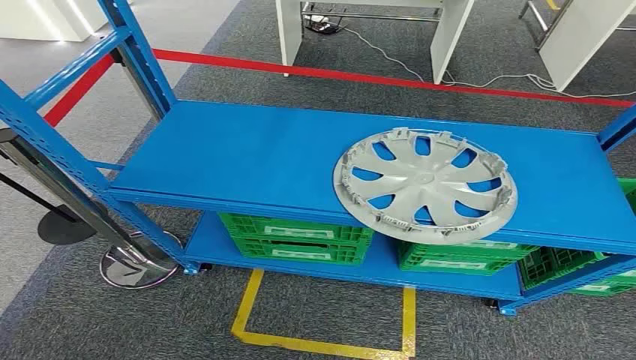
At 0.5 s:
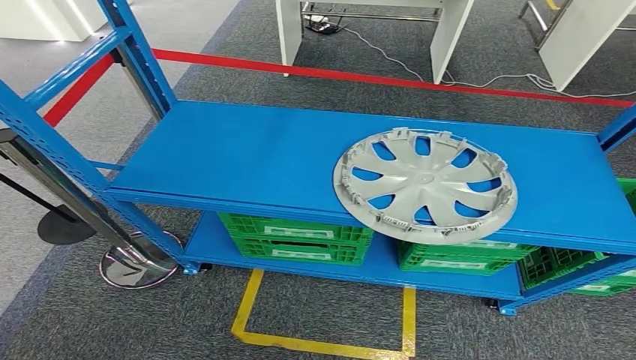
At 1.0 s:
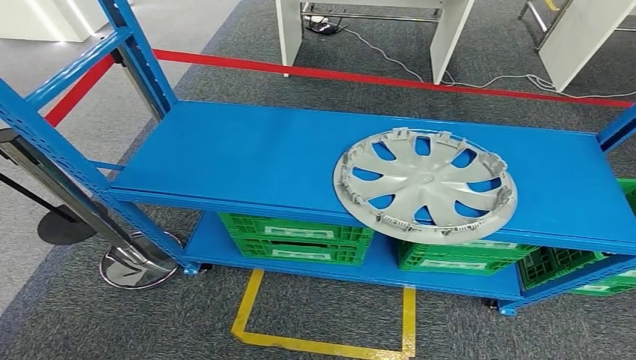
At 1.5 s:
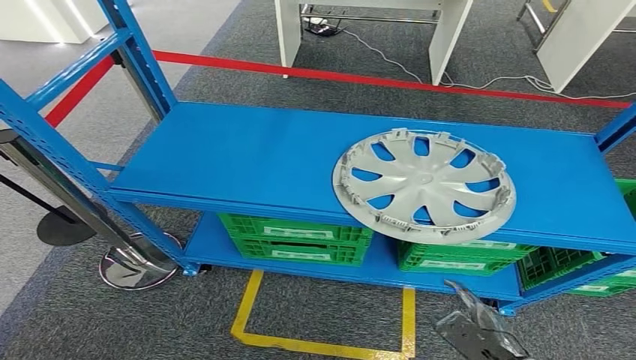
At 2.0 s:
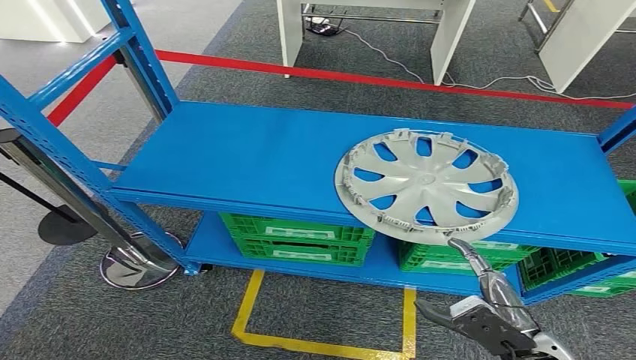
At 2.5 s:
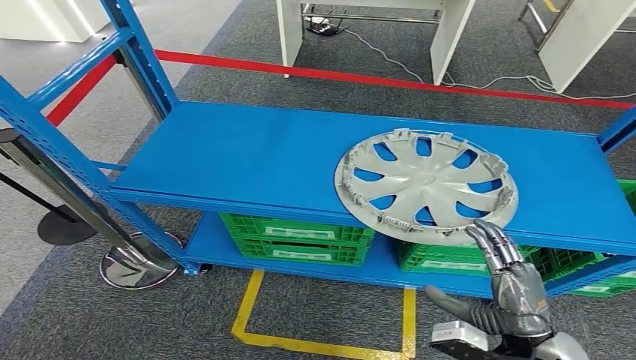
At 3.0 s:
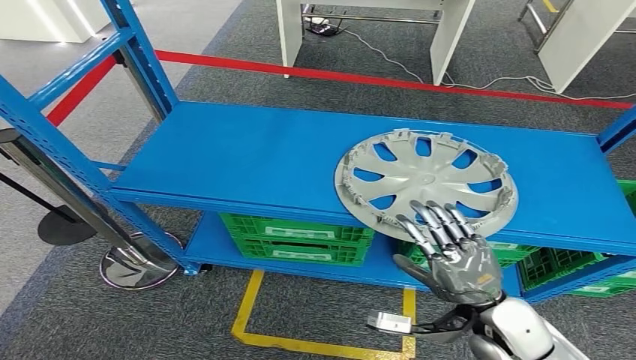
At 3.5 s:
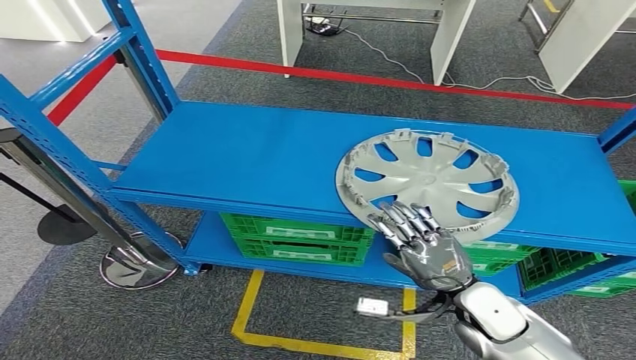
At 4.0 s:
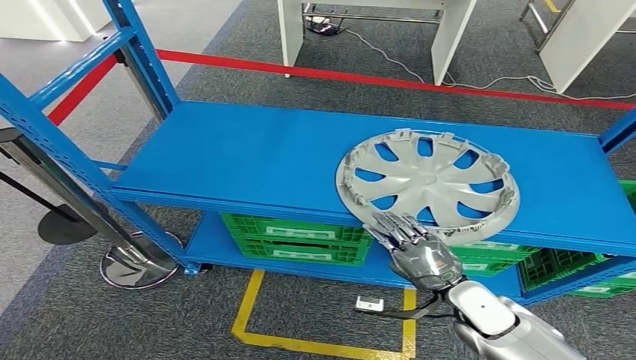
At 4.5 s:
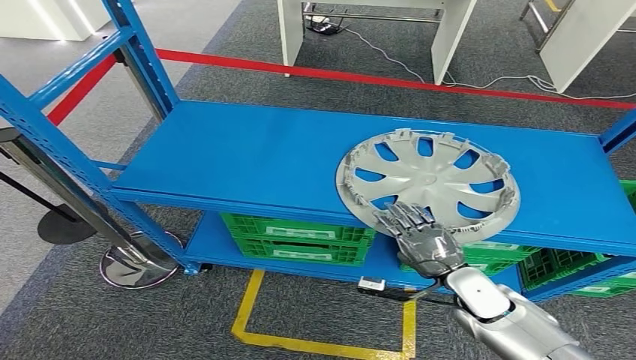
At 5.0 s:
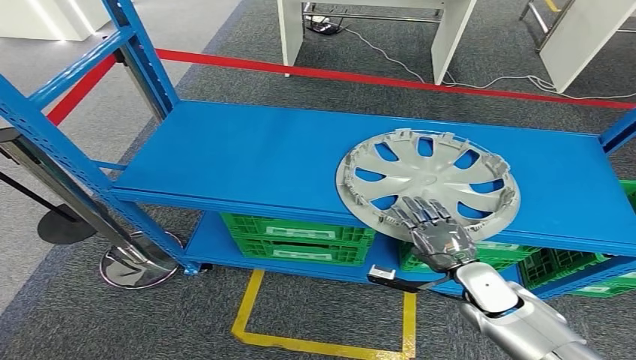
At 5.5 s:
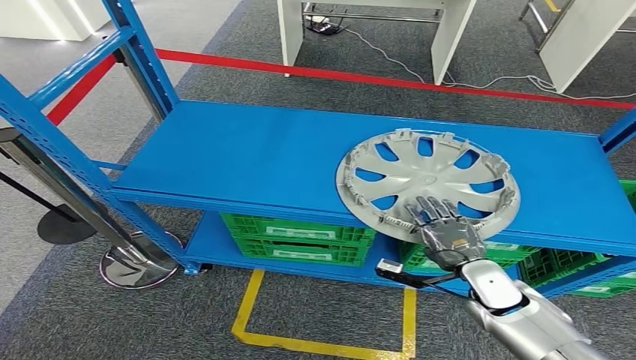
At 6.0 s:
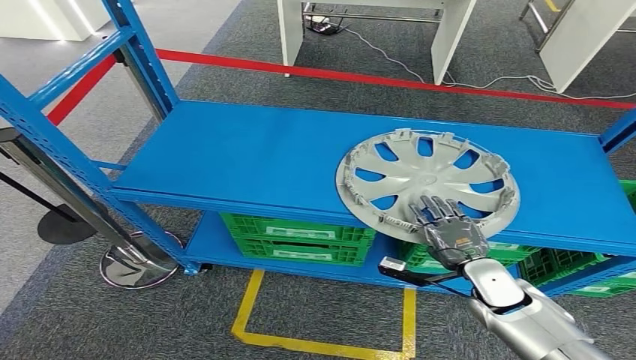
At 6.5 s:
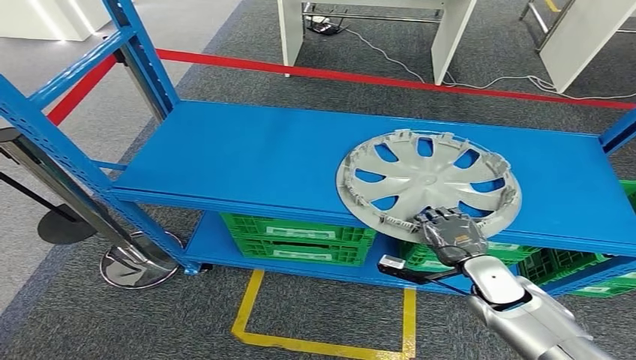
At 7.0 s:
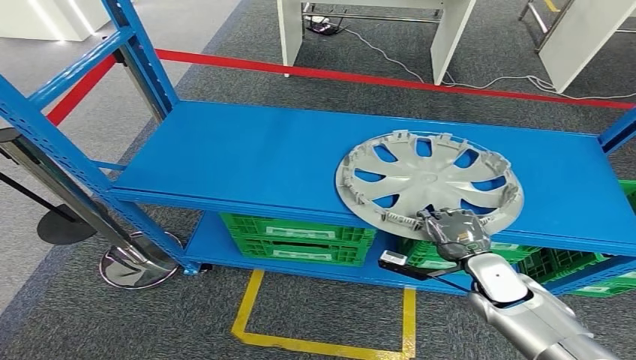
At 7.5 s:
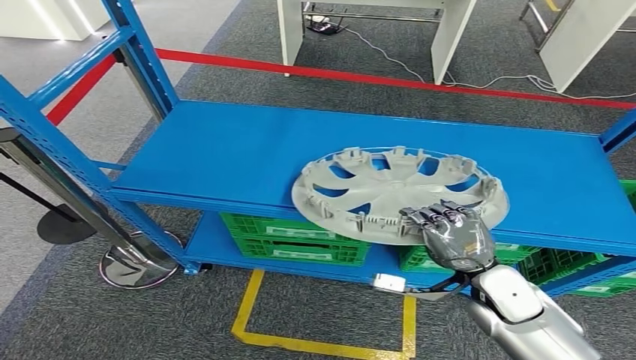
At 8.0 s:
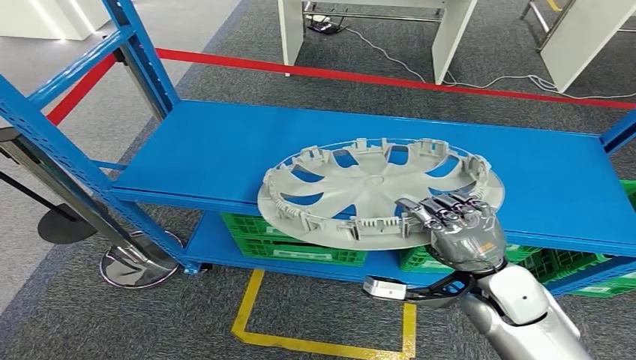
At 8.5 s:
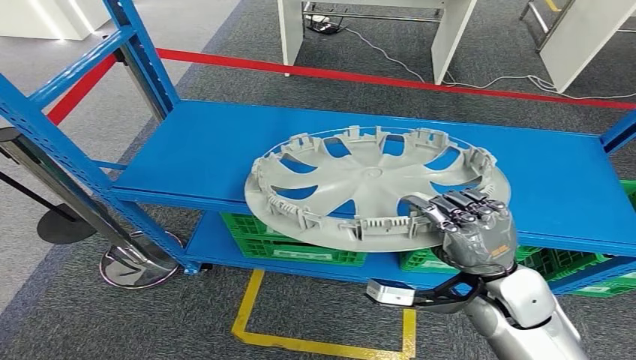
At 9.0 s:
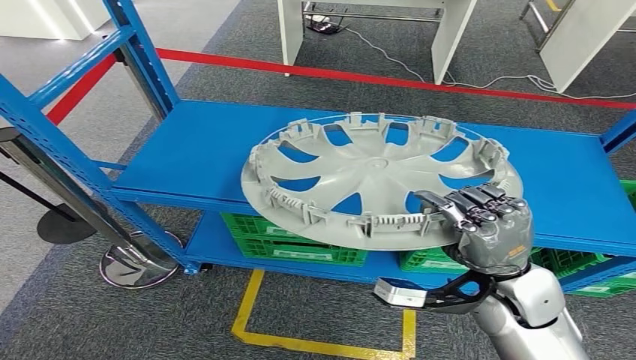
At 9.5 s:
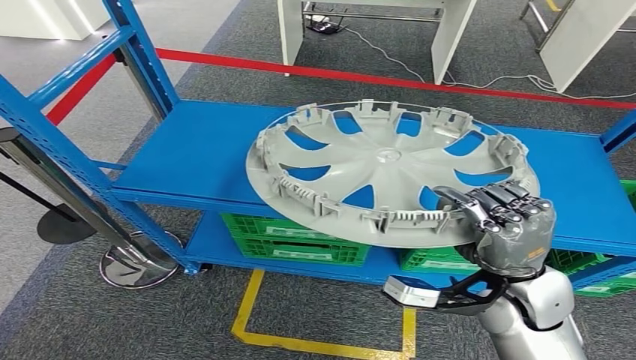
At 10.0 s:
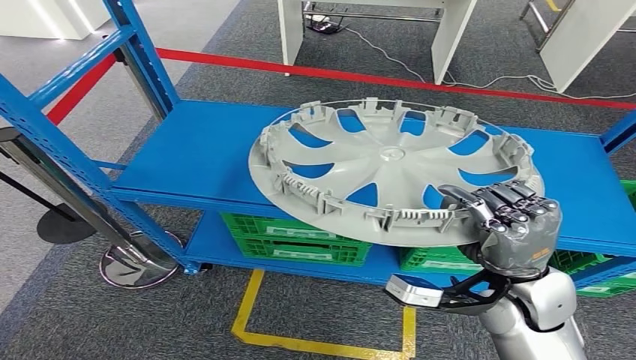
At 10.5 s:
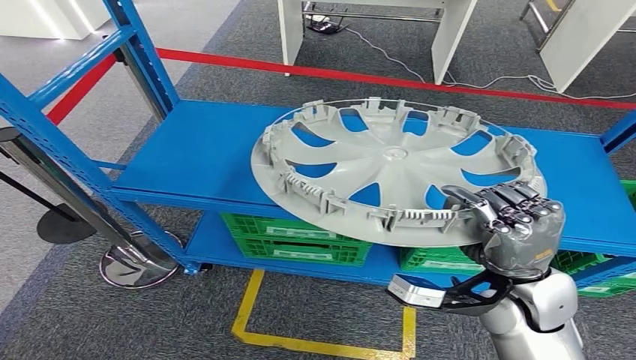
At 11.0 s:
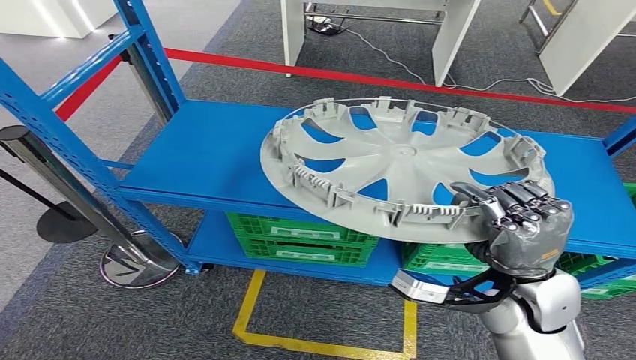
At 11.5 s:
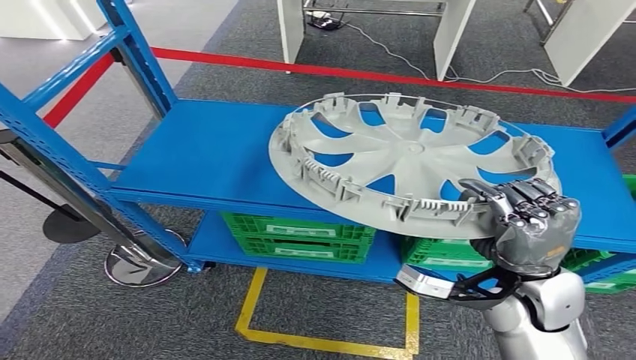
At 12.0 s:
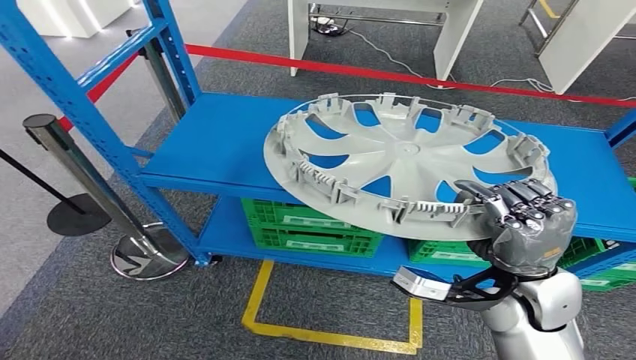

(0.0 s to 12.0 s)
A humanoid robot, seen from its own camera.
2.0 s - 4.0 s: The right hand moves forward, approximately 10 cm.
4.0 s - 6.0 s: The right hand ends up roughly 5 cm from where it was.
6.0 s - 8.0 s: The right hand heads upward, covering approximately 10 cm.
8.0 s - 10.0 s: The hands stay close to where they were, moving slightly.

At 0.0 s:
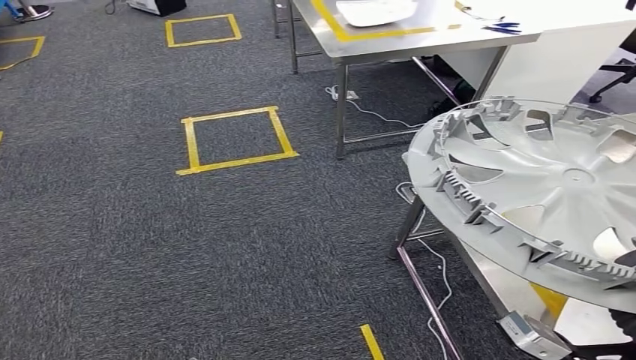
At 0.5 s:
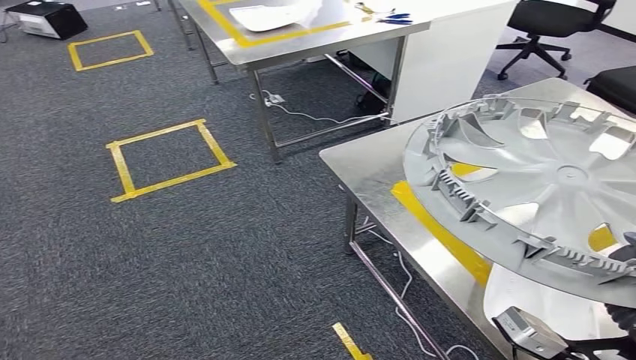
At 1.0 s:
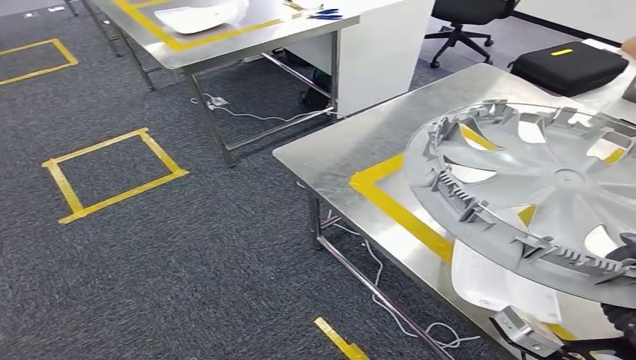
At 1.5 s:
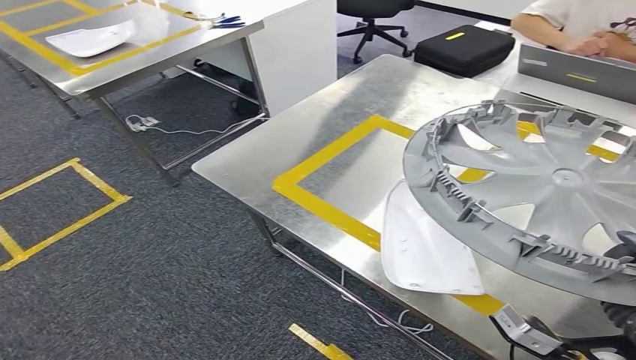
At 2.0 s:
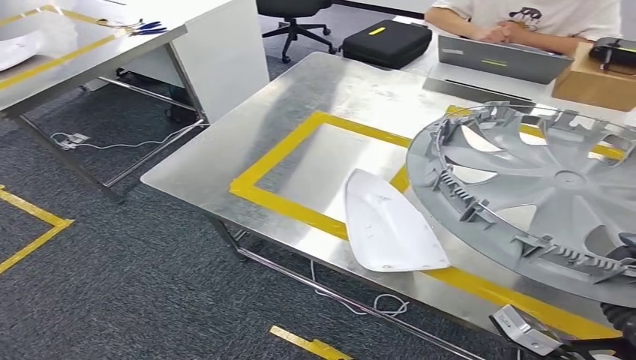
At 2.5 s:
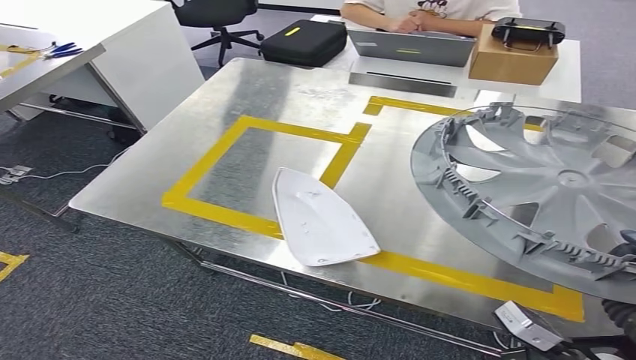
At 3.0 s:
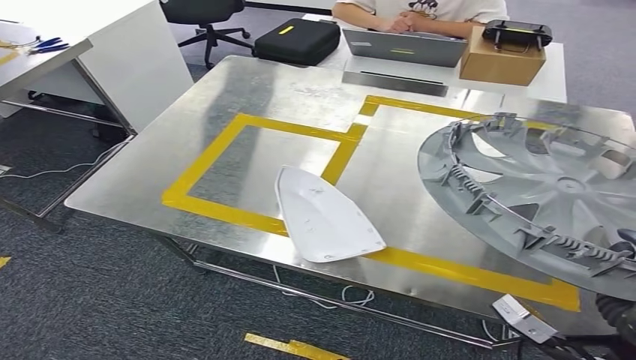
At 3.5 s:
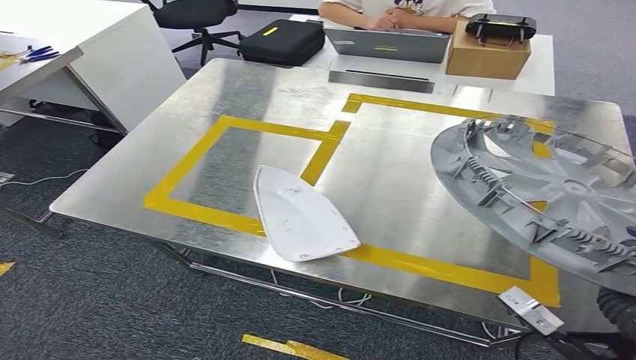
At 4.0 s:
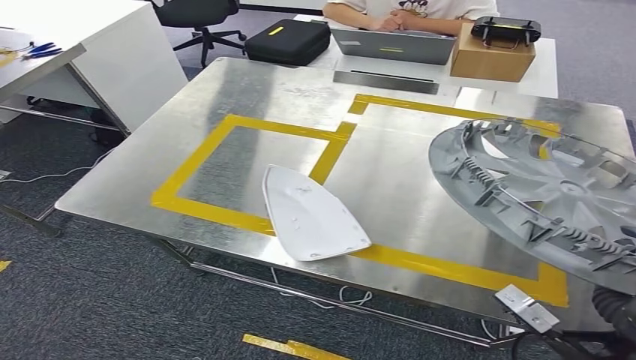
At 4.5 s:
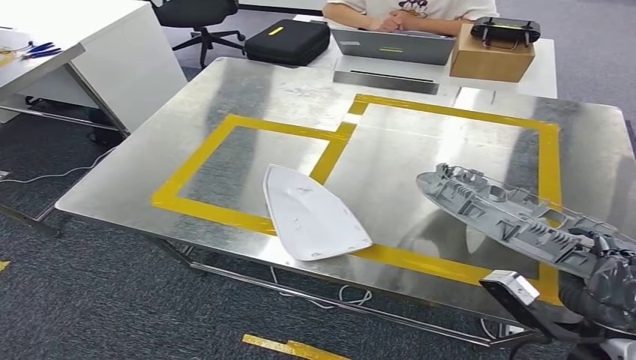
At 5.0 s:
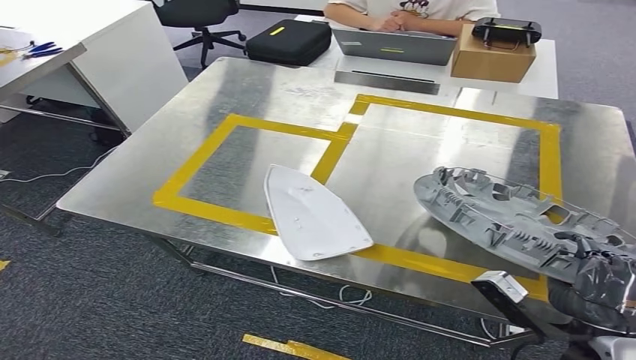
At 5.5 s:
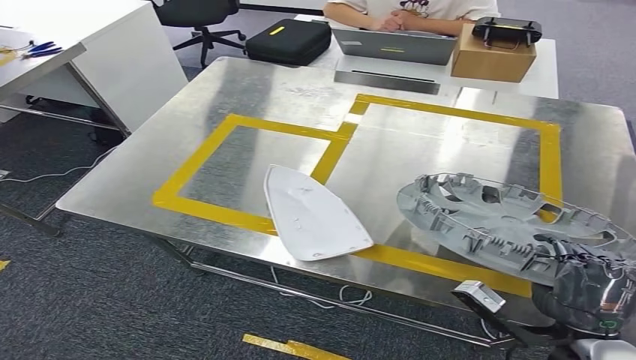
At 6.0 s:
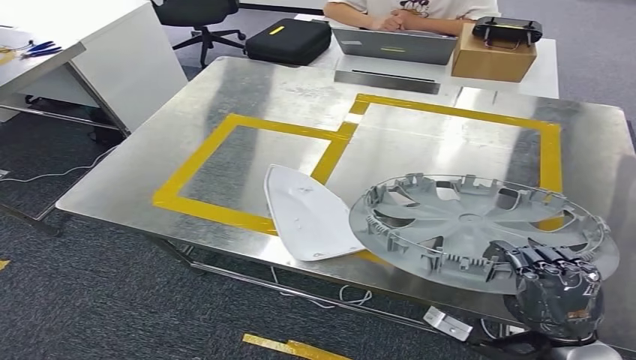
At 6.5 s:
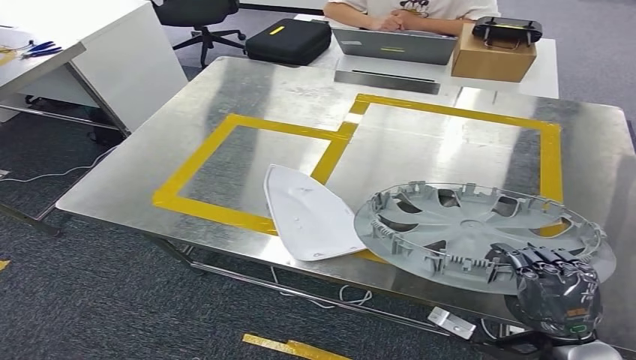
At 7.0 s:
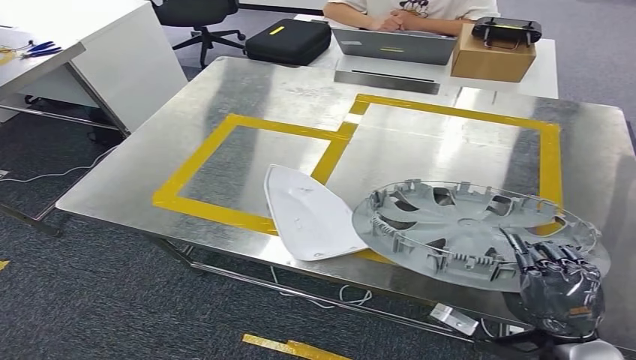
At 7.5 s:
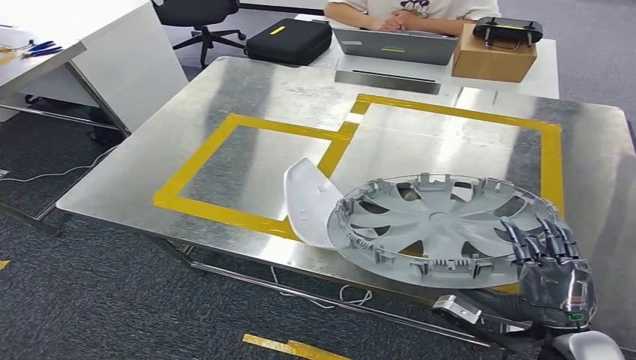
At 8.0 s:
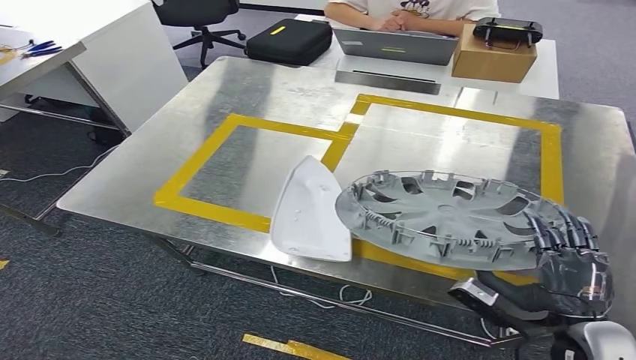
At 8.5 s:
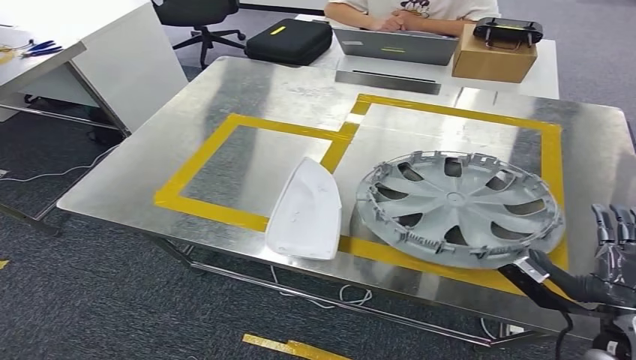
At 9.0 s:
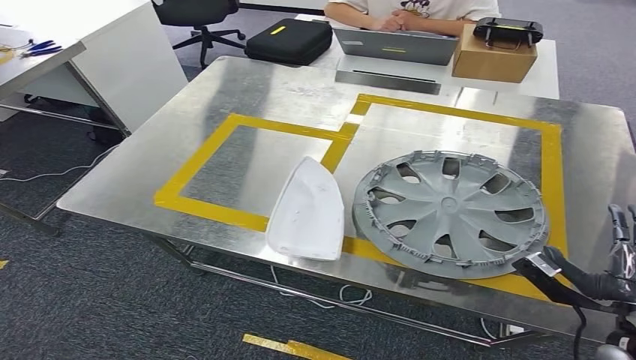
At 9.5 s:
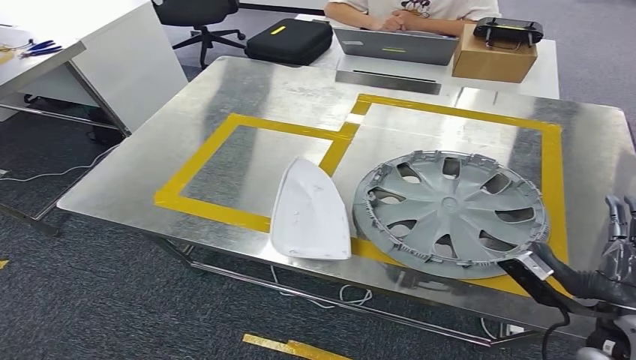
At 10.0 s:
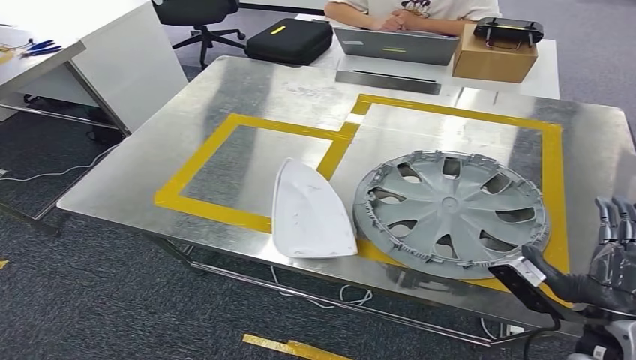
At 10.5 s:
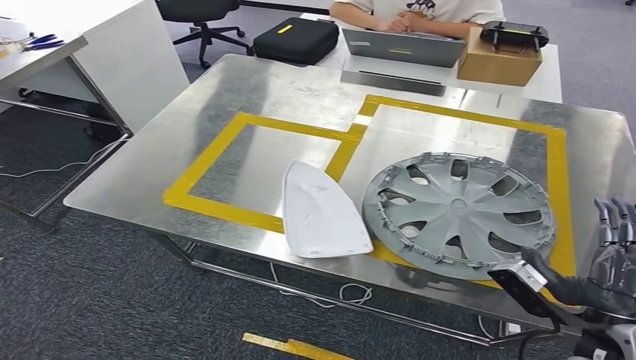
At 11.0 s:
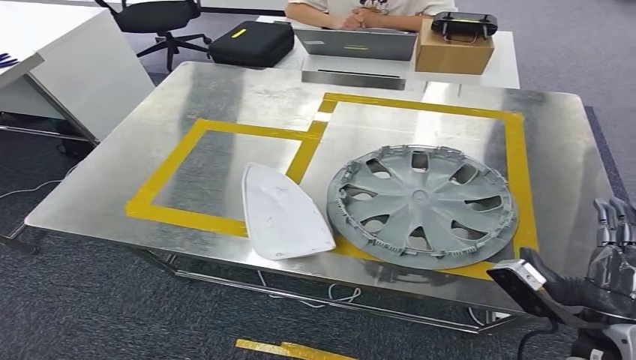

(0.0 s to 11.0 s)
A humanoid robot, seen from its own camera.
Step, 0.0 s - 3.0 s: Move the small component to the workbench.
5.5 s - 7.5 s: The hands move only a little.
7.5 s - 9.0 s: The right hand heads to the right, covering roughly 10 cm.
